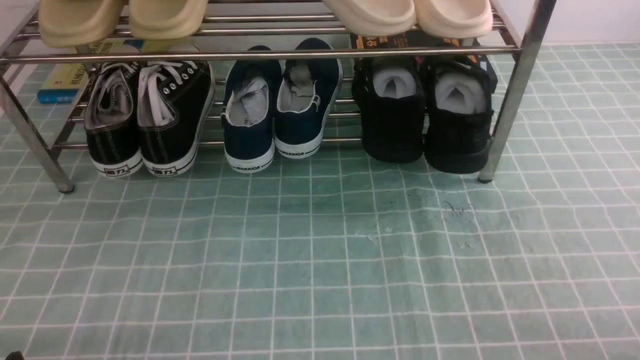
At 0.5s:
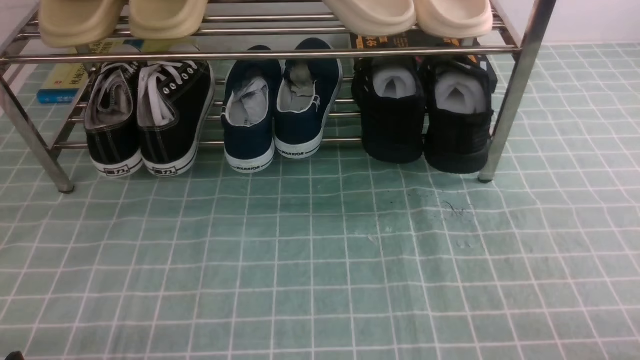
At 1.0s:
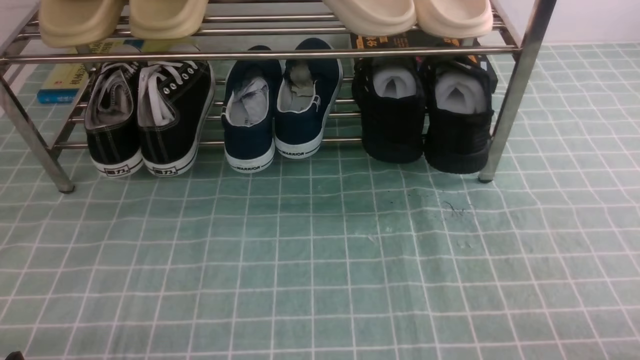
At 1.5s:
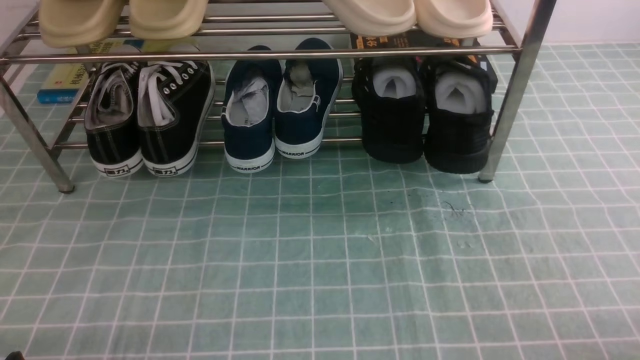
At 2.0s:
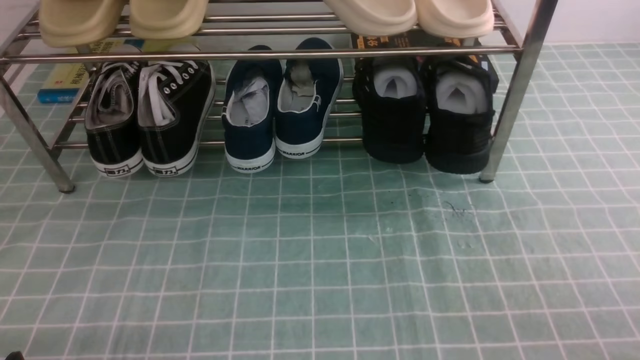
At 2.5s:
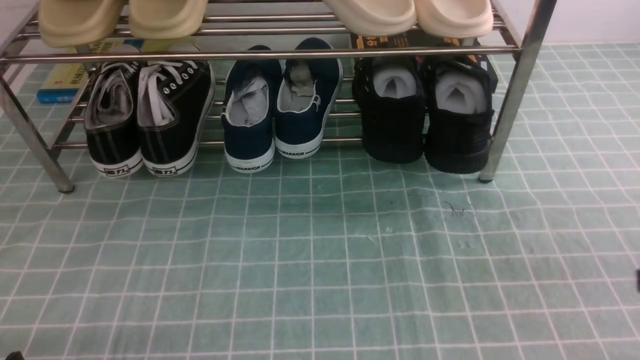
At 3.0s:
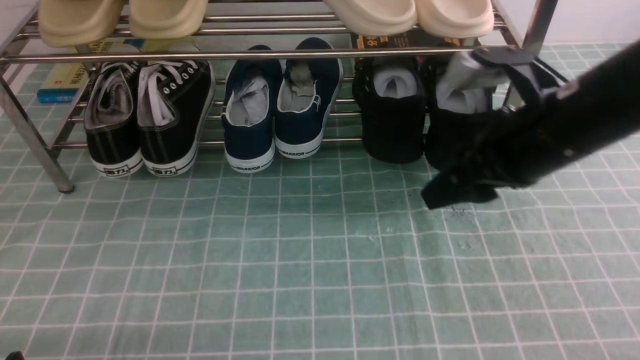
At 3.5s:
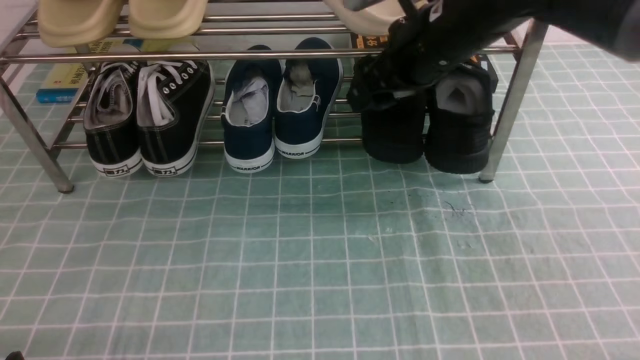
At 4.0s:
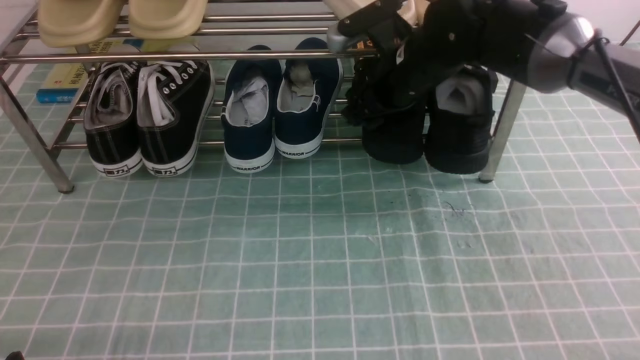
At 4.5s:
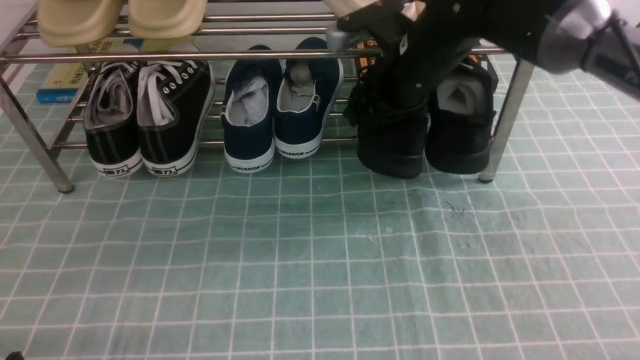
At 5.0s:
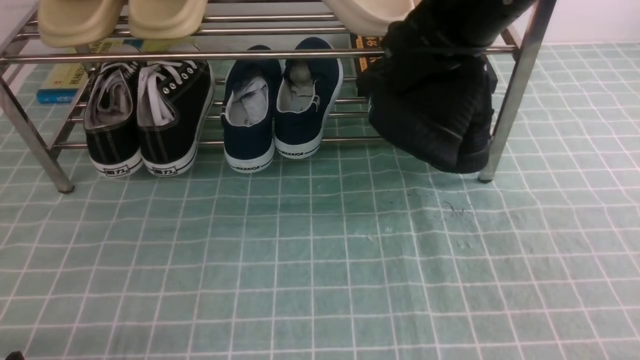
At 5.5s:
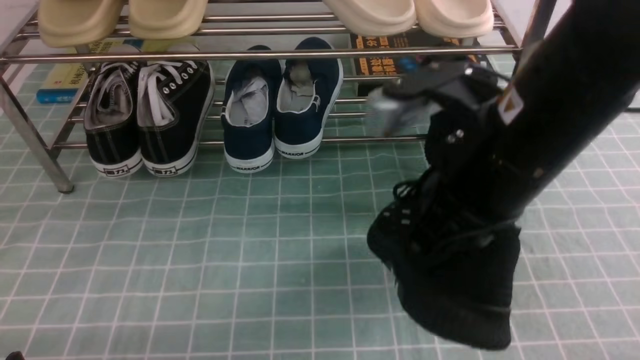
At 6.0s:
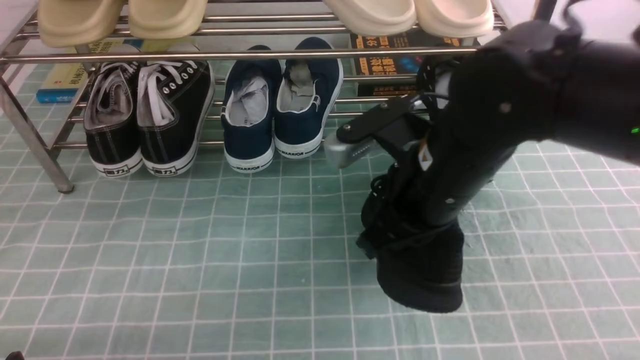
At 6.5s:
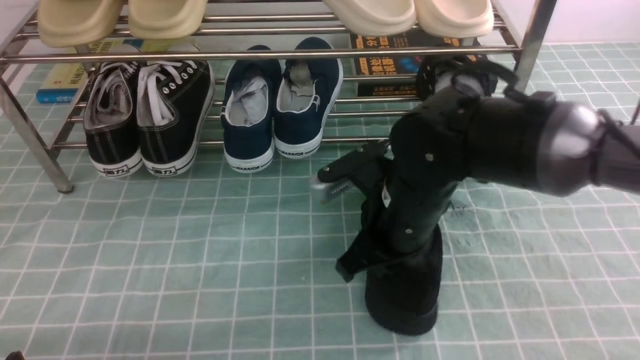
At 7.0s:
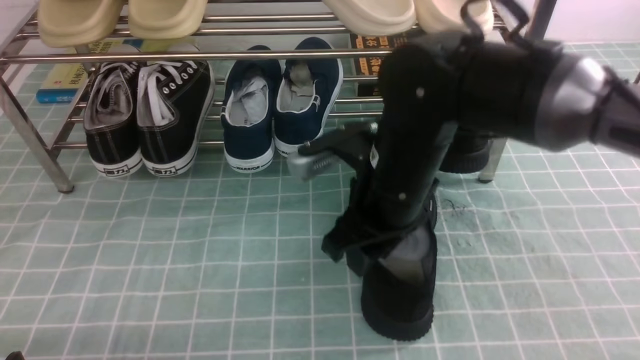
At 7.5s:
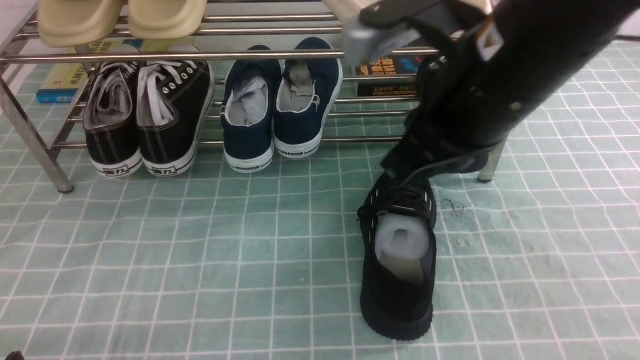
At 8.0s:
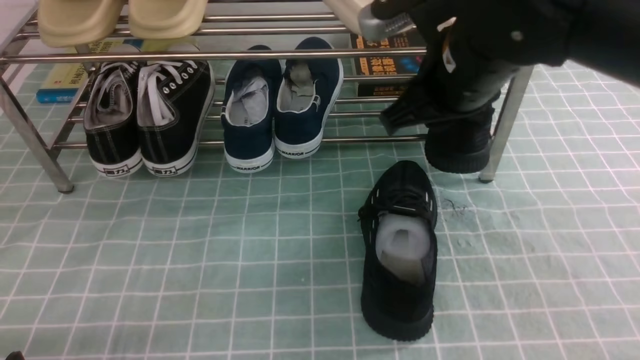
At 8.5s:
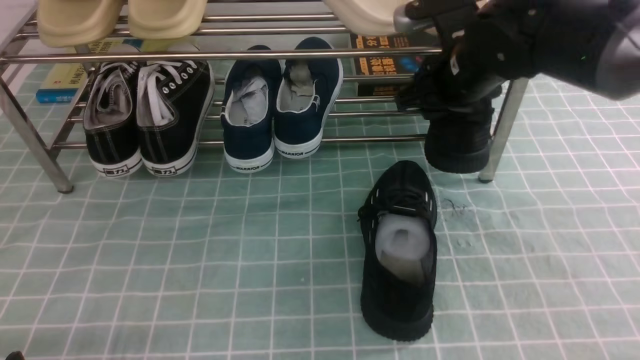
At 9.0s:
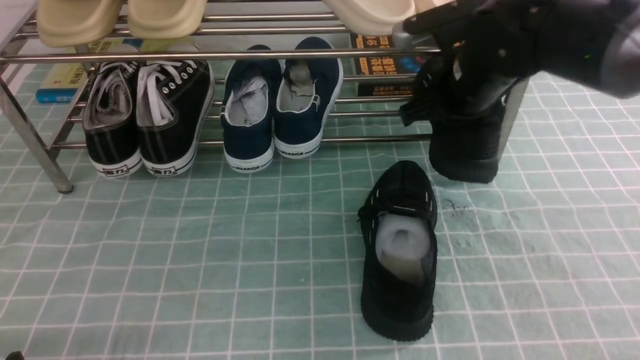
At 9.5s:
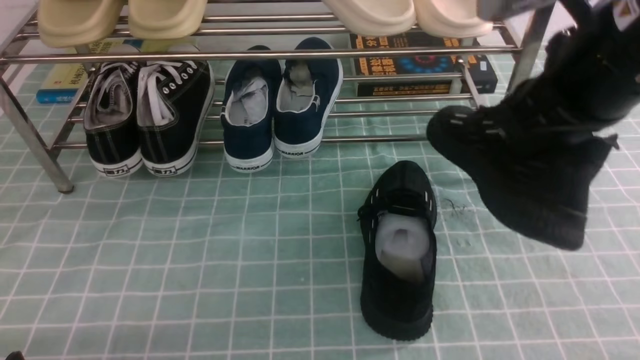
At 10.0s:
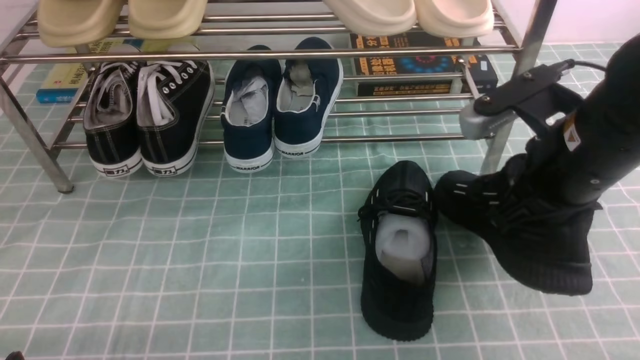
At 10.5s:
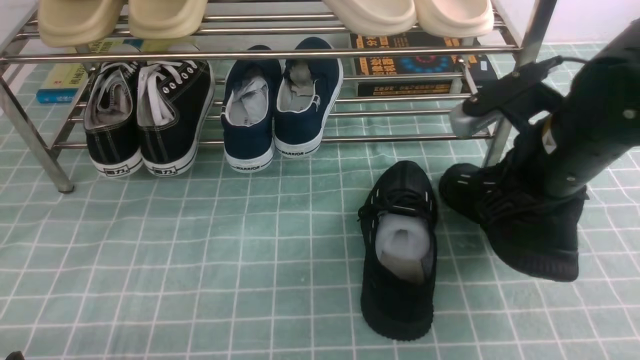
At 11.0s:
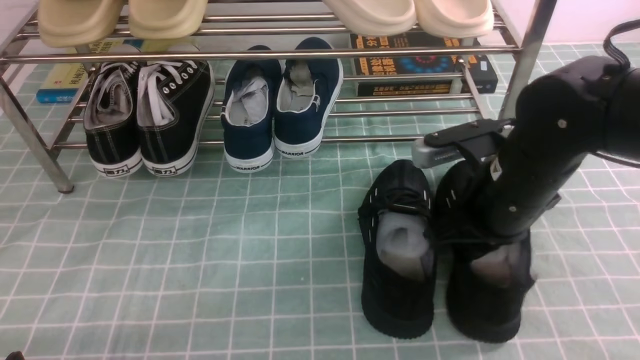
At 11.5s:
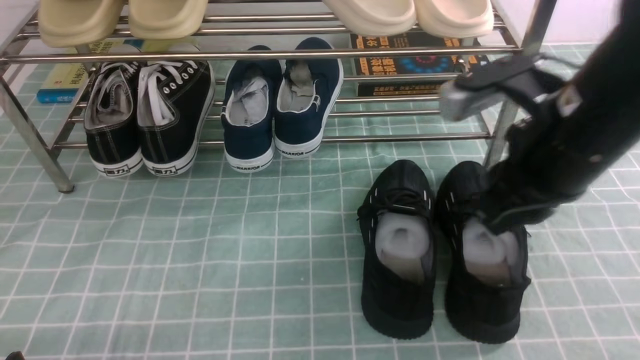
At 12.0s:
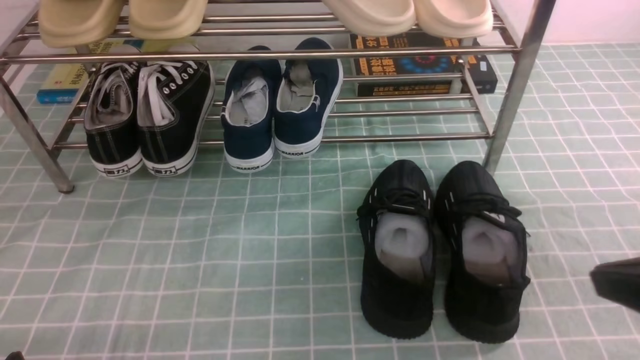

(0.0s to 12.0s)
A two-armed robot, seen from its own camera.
Step, 0.0s - 4.0s: use the right arm to clamp a shoe on the right side of the shoe rack.
Step, 4.5s - 6.5s: use the right arm to take out the clamped shoe from the shoe rack and put it down.
Step, 7.0s - 8.5s: use the right arm to clamp a shoe on the right side of the shoe rack.
Step, 9.0s - 11.5s: use the right arm to take out the clamped shoe from the shoe rack and put it down.
2.0s - 4.0s: The right gripper heads forward and to the left, covering roughly 40 cm, and opens its fingers.
4.0s - 6.0s: The right gripper shifts approximately 15 cm backward, and closes.
6.0s - 8.0s: The right gripper travels upward and forward by roughly 10 cm, and opens.
8.0s - 10.0s: The right gripper shifts roughly 10 cm to the right and backward, and closes up.
10.0s - 12.0s: The right gripper travels backward and to the right by roughly 15 cm.

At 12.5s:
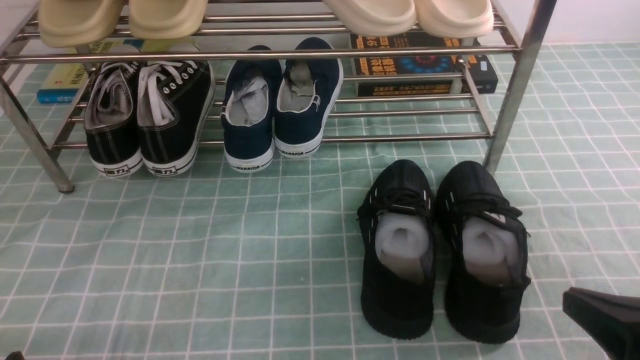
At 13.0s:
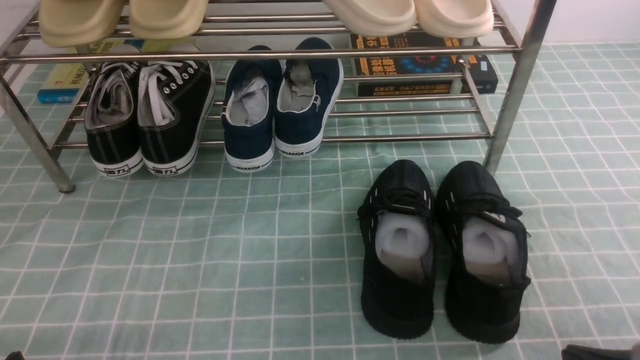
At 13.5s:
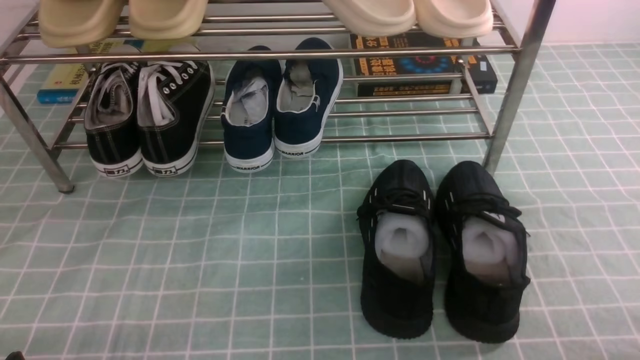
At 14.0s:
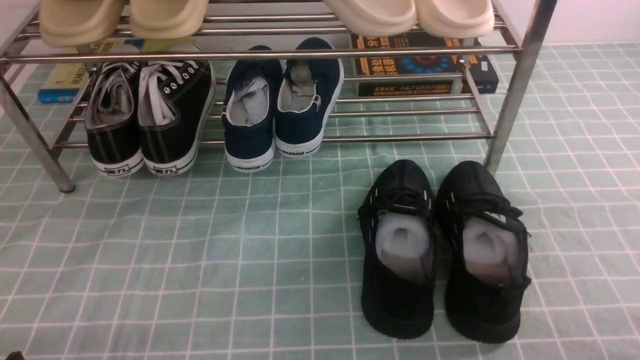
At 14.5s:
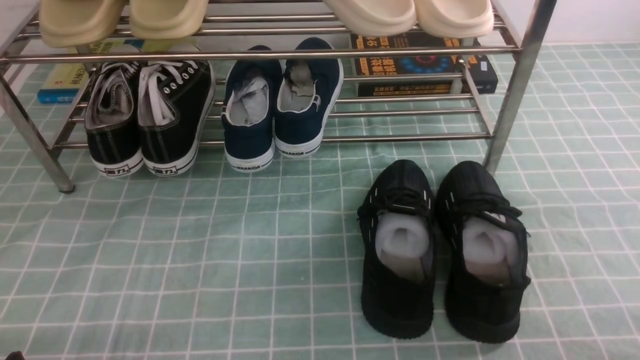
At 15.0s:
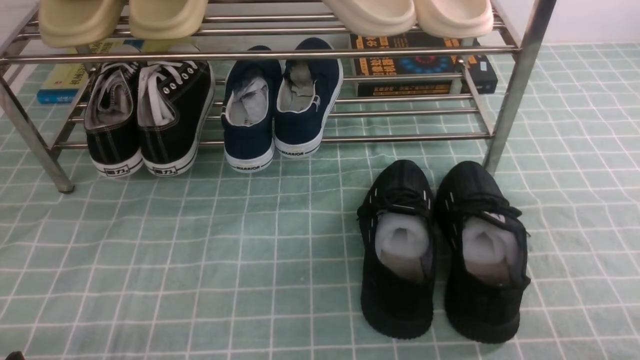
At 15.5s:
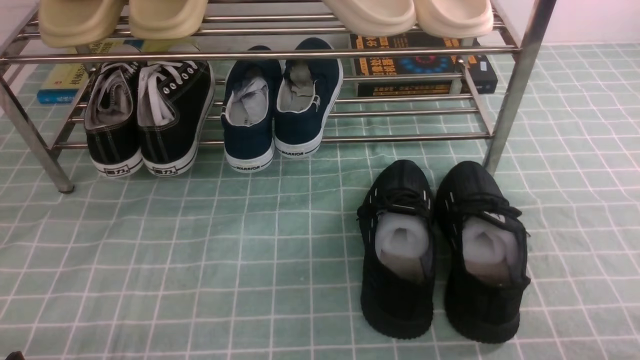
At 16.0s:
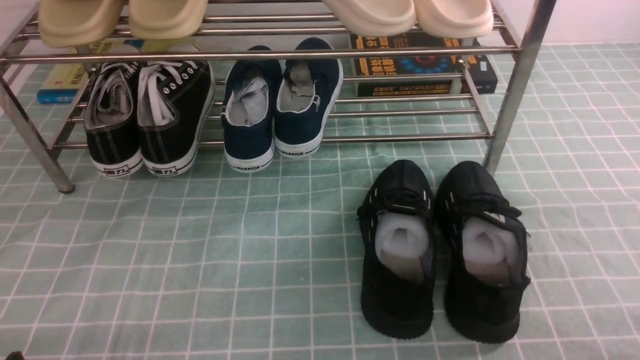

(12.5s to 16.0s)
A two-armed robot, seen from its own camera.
12.5s - 14.5s: The right gripper travels to the right and backward by approximately 5 cm.
14.5s - 16.0s: Both grippers stay about where they are.

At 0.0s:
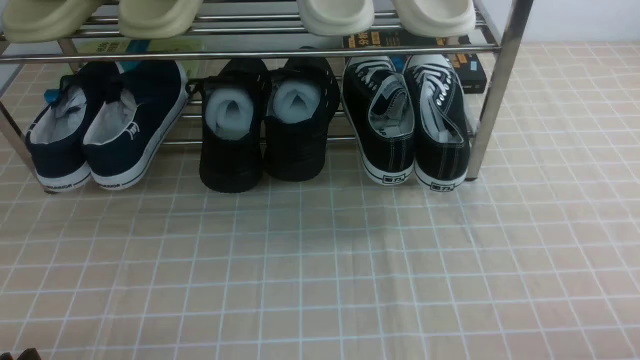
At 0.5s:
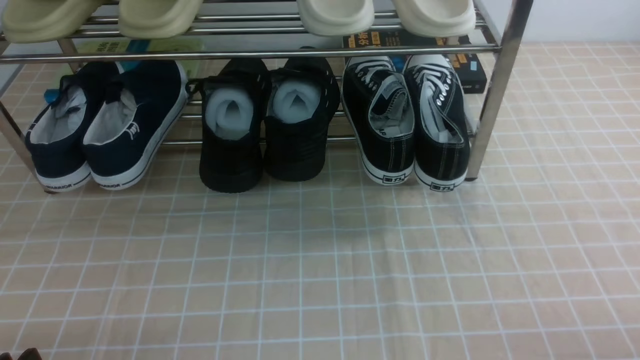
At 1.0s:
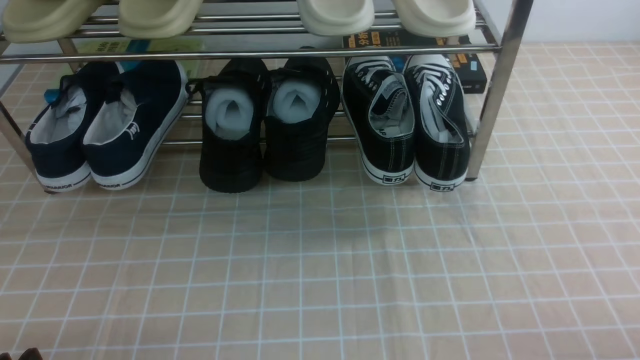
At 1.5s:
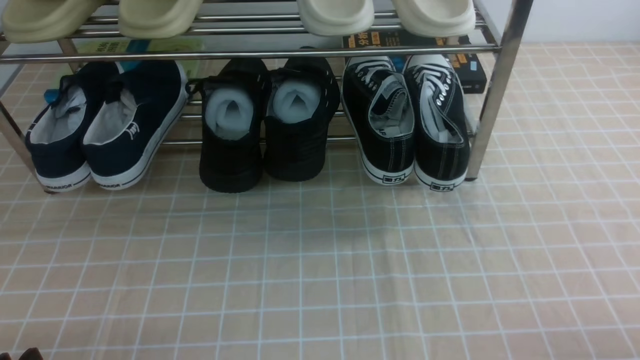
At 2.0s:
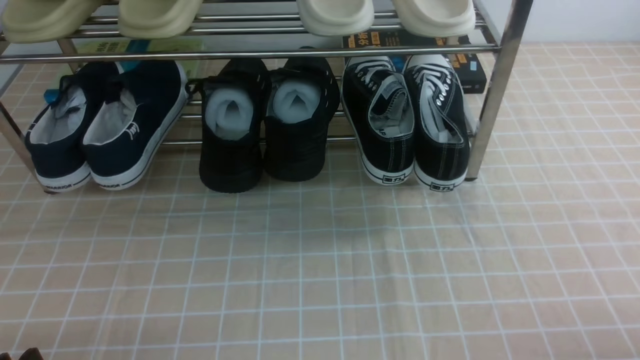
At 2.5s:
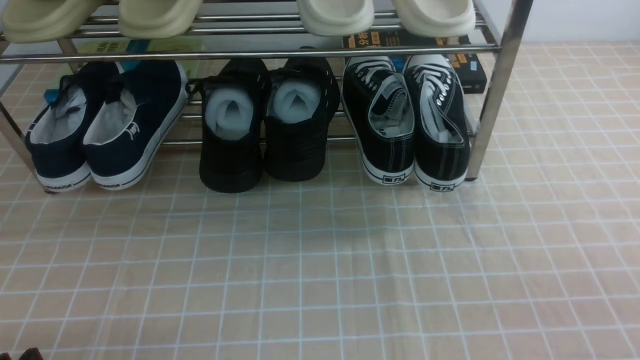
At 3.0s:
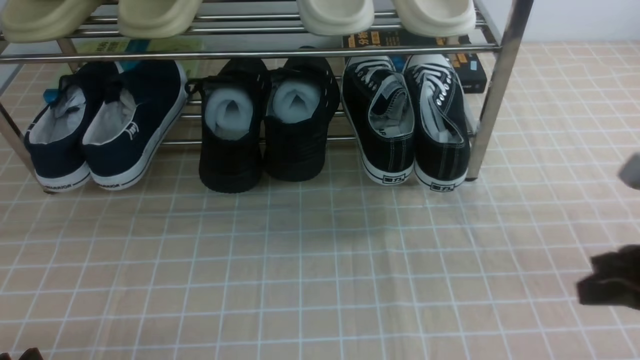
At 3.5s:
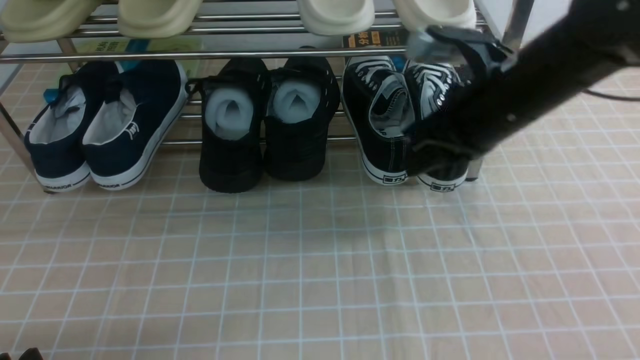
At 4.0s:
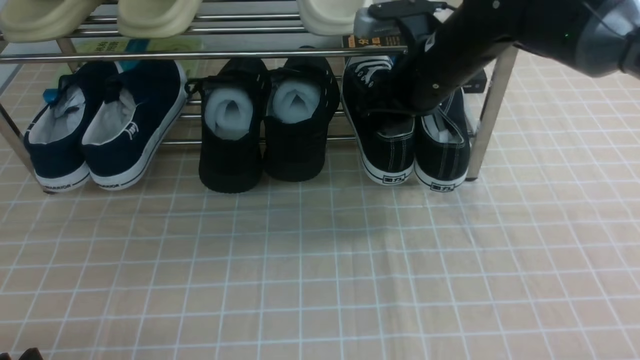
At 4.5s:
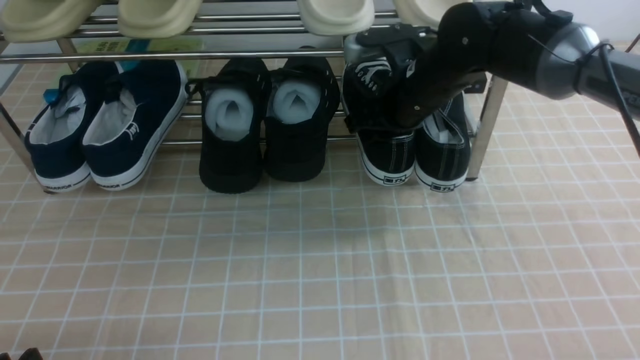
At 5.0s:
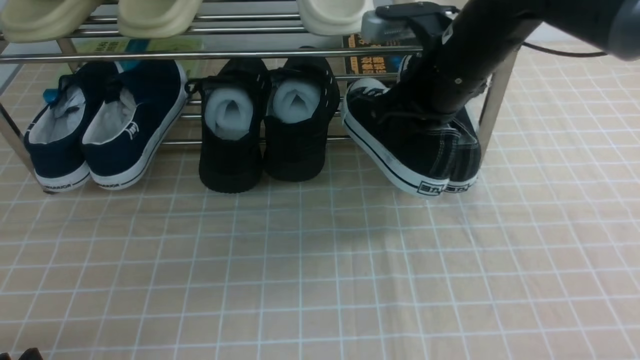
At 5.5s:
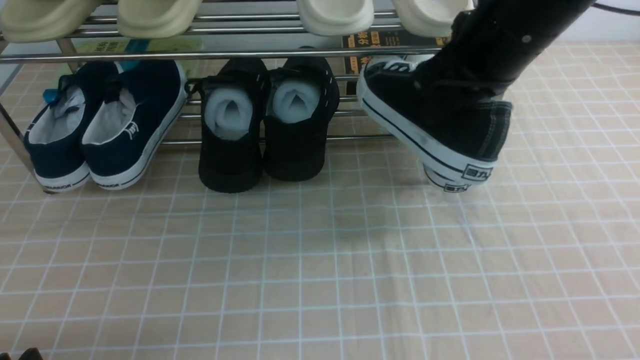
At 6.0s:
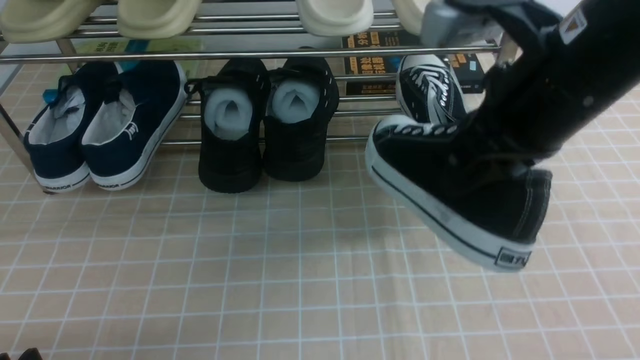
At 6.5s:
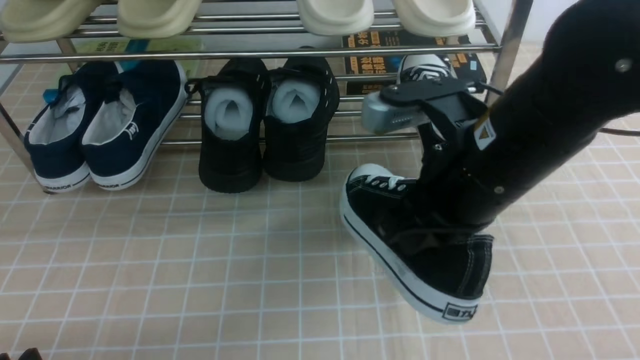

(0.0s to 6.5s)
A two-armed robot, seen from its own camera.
Step, 0.0s - 4.5s: use the right arm to clamp a shoe on the right side of the shoe rack.
2.0s - 4.5s: The right gripper travels forward and to the left by about 40 cm, and closes, then reopens.
4.5s - 6.5s: The right gripper travels backward by some 20 cm, and closes up.
